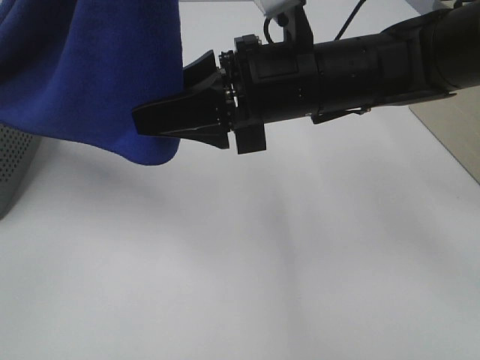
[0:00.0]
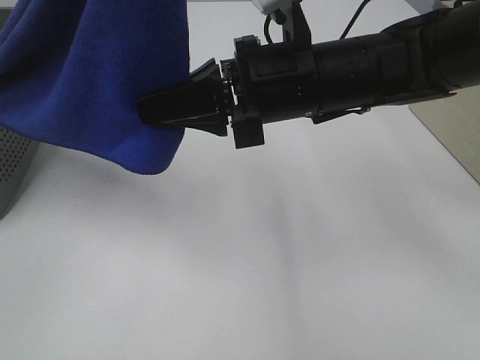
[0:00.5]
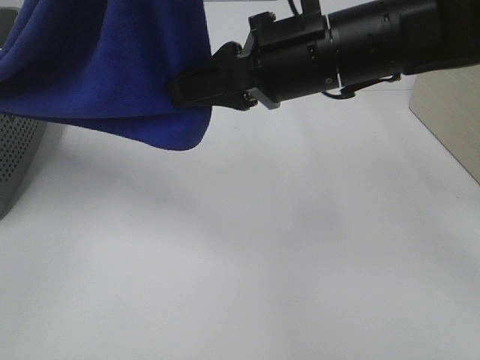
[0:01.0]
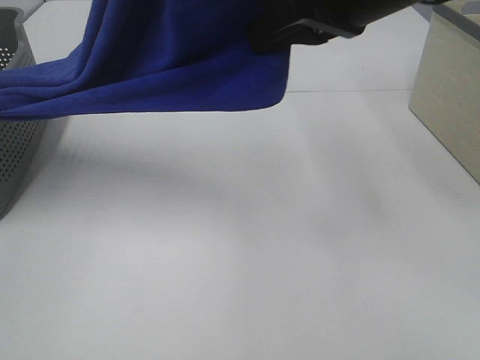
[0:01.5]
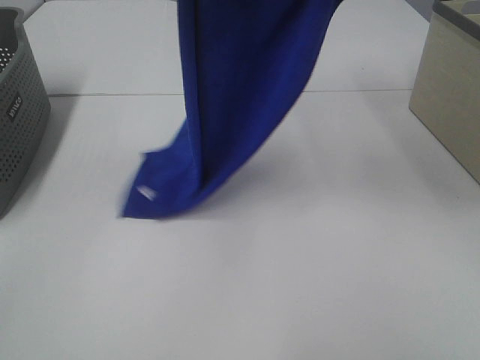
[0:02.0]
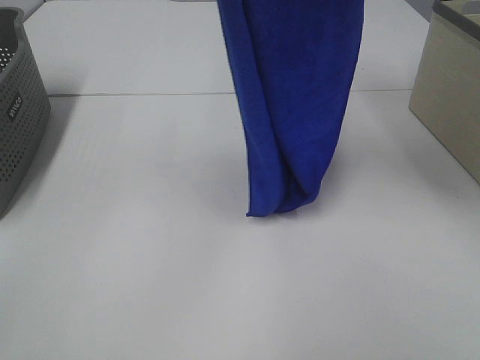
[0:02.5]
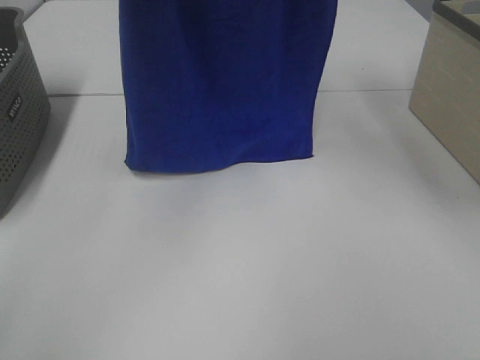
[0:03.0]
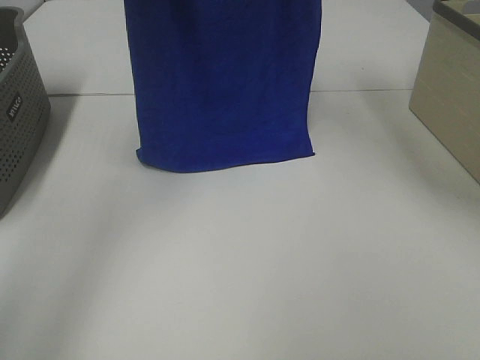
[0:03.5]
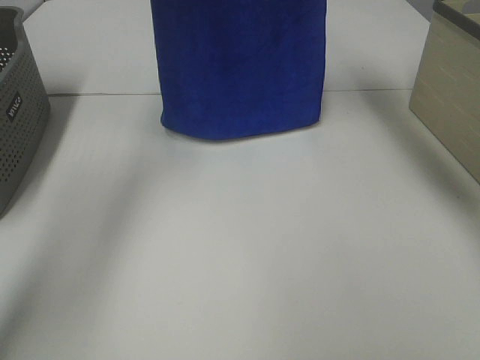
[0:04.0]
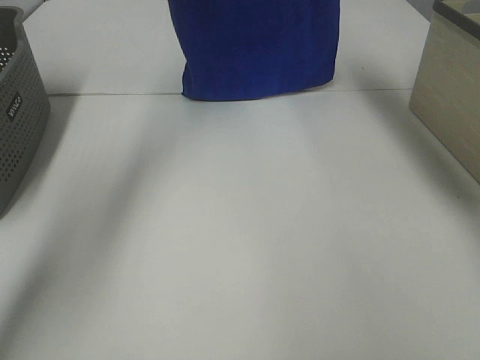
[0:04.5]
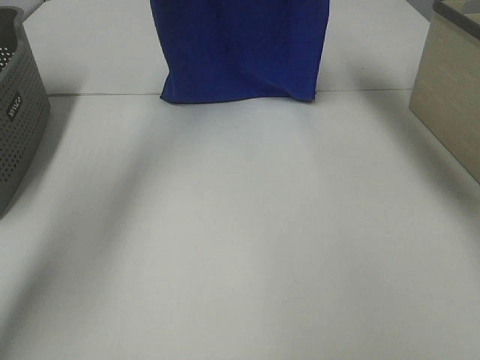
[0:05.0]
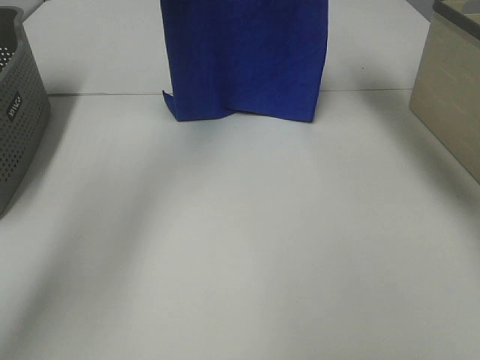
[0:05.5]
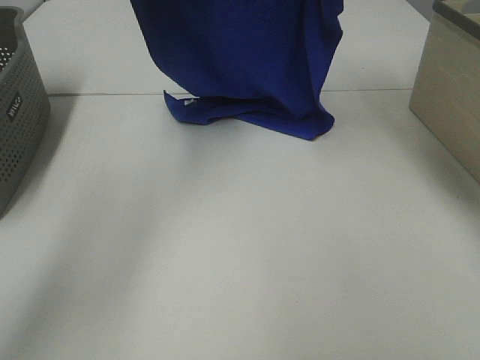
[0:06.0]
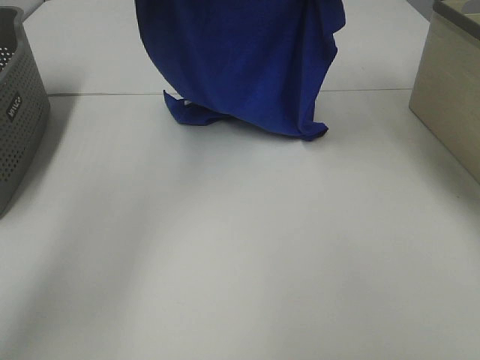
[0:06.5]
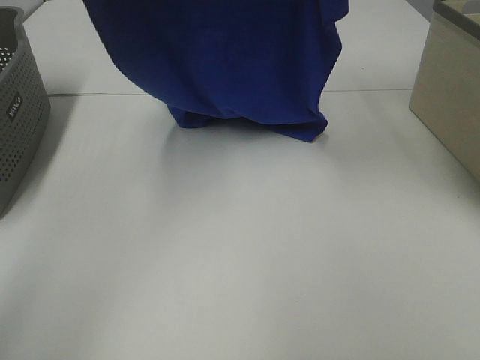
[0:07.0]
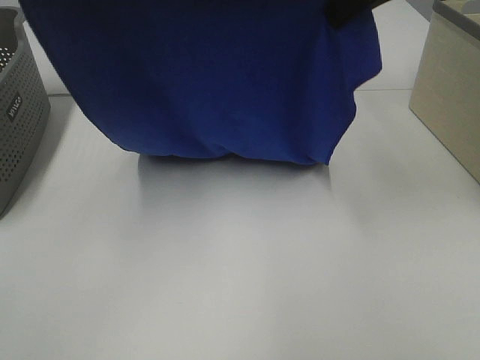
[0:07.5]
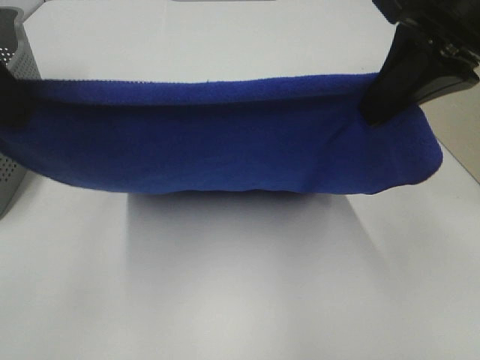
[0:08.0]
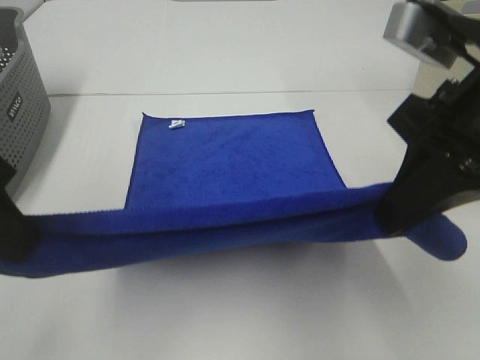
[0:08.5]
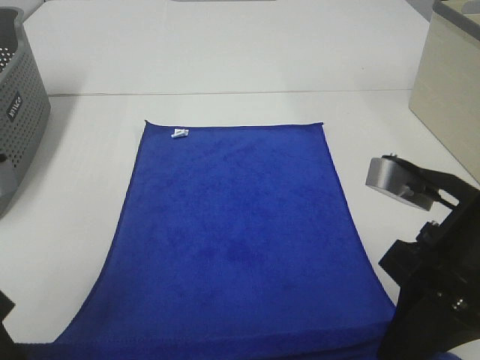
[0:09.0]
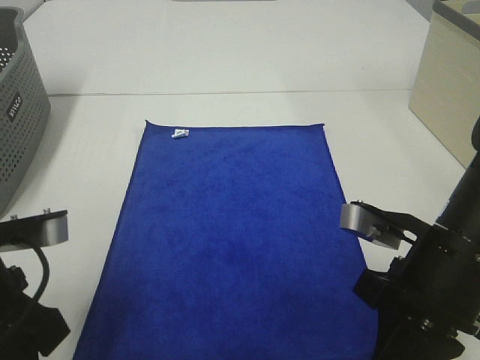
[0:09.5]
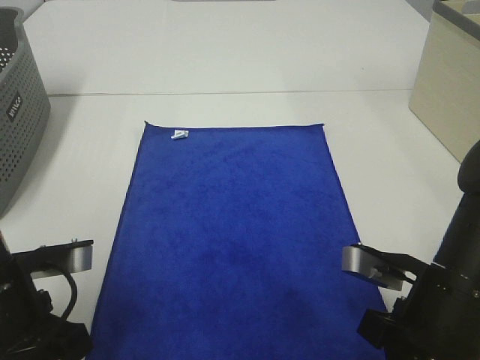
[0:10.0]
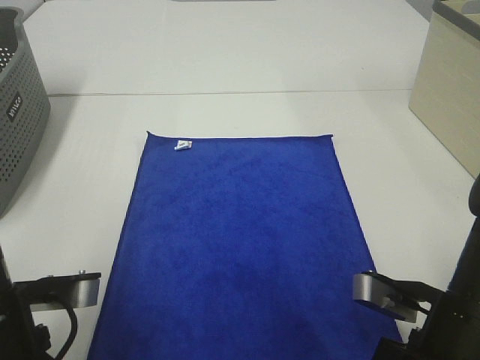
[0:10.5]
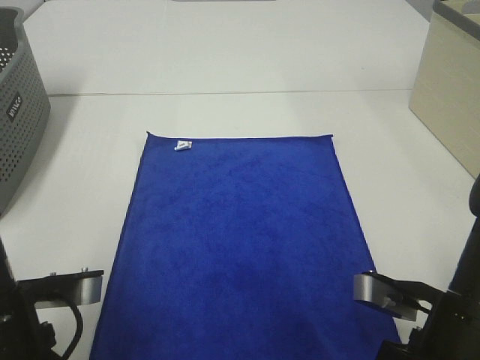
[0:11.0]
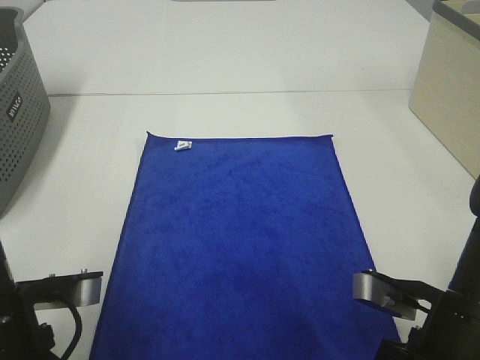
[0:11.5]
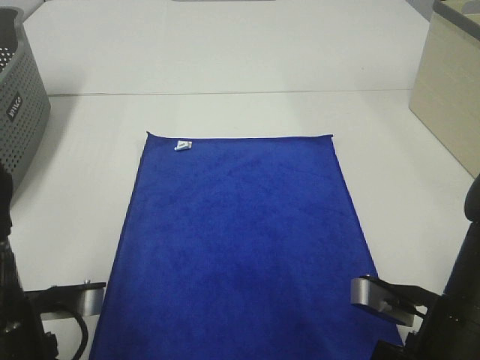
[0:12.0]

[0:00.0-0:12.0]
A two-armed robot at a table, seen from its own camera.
Task of the whole recording: Remove the towel and place it.
Step, 0:01.5 to 0:09.0: Left hand: spread the blue towel flat on the table.
Step, 0:01.5 to 0:09.0: Right hand: spread the blue towel flat on the table.
0:00.0 to 0:02.0: The left gripper moves forward, roughly 10 cm. The right gripper shifts approximately 20 cm upward and to the right, and closes its fingers.
0:02.0 to 0:04.0: The grippers both shift forward by approximately 20 cm.
0:04.0 to 0:06.0: The grippers both shift downward by about 10 cm.
0:06.0 to 0:08.0: Both grippers move backward, approximately 25 cm.
0:08.0 to 0:10.0: Both grippers travel together downward, approximately 25 cm.
0:10.0 to 0:12.0: The grippers move only a little.

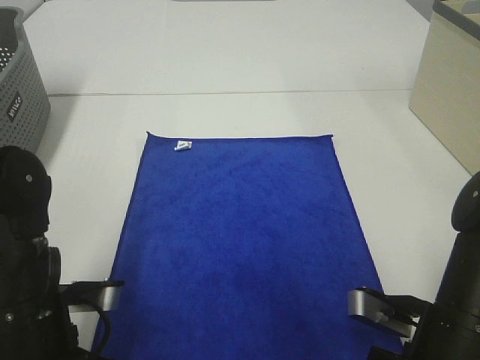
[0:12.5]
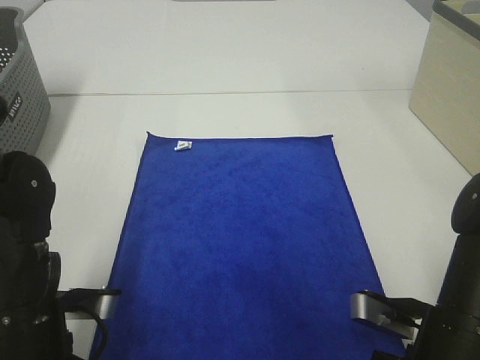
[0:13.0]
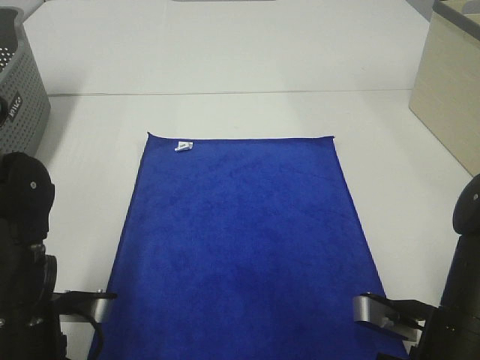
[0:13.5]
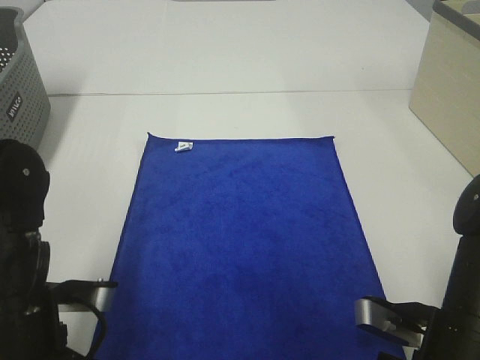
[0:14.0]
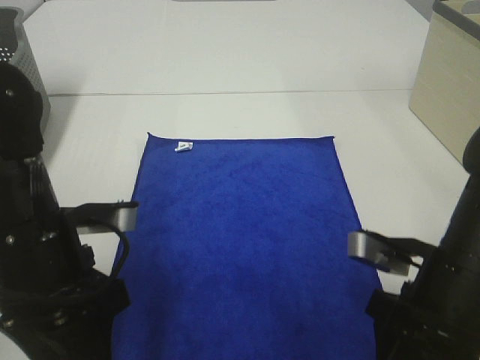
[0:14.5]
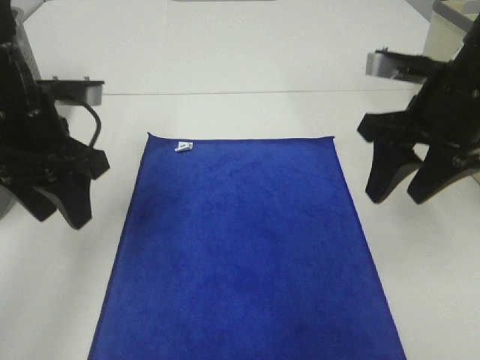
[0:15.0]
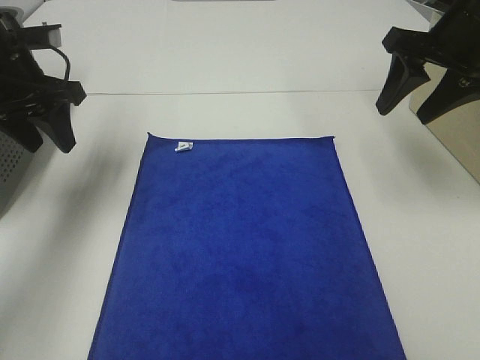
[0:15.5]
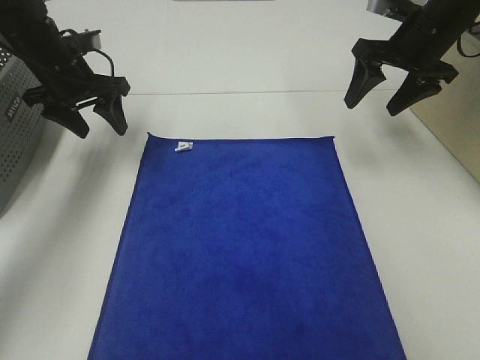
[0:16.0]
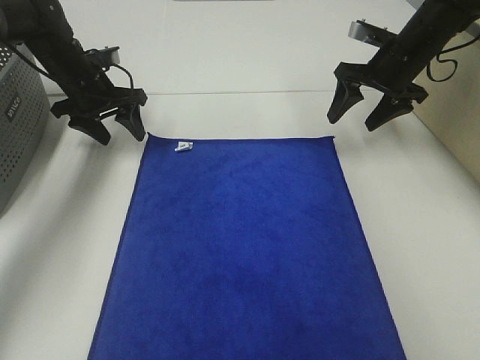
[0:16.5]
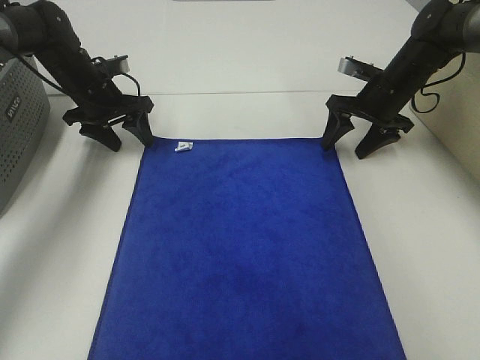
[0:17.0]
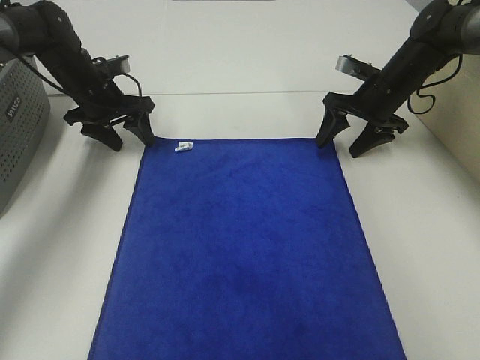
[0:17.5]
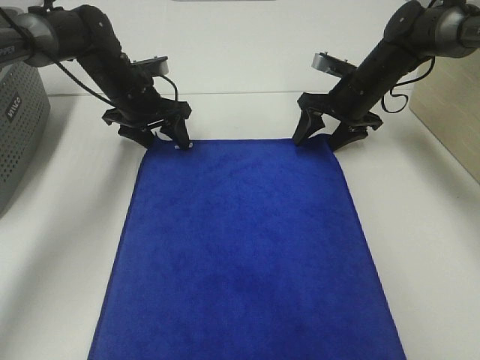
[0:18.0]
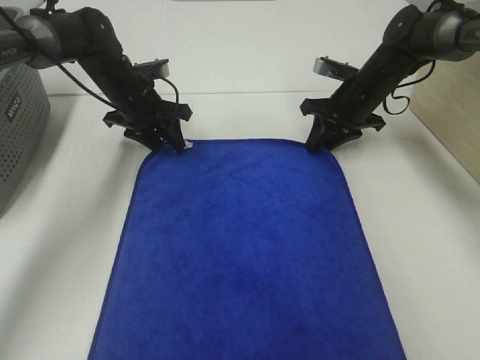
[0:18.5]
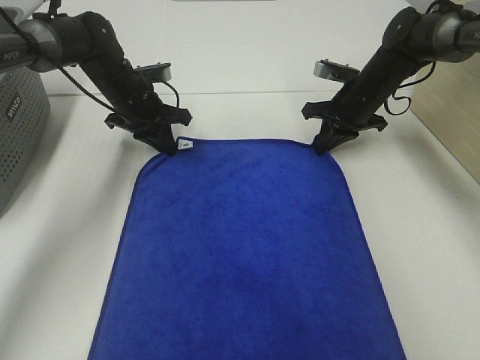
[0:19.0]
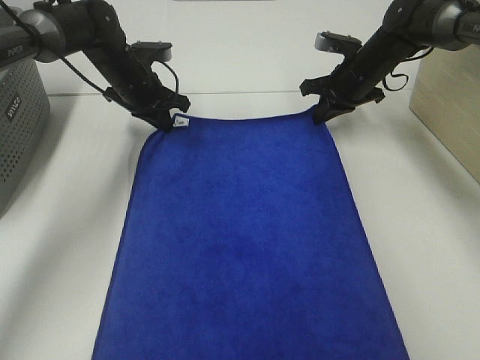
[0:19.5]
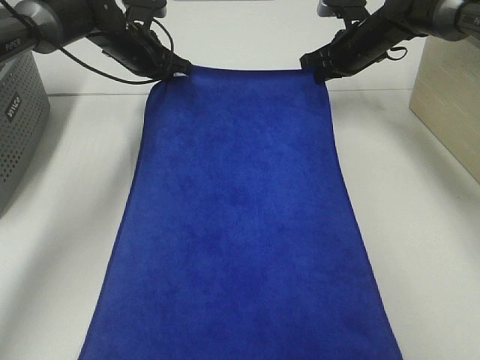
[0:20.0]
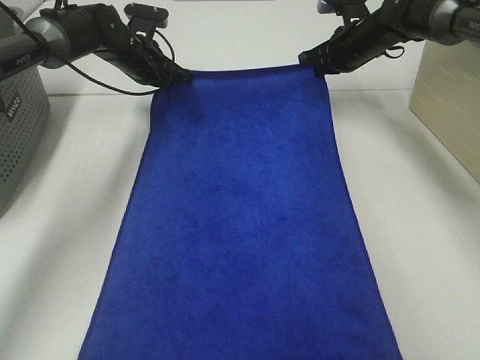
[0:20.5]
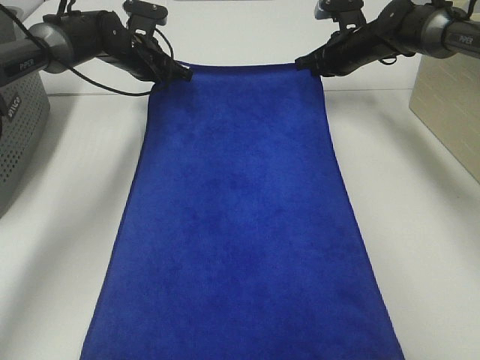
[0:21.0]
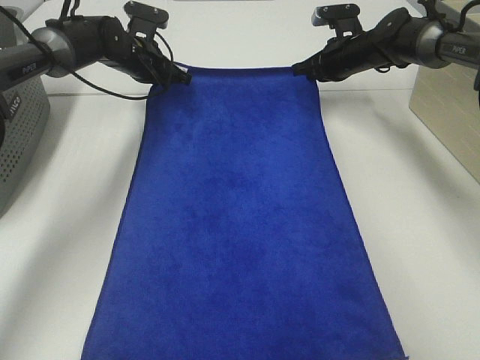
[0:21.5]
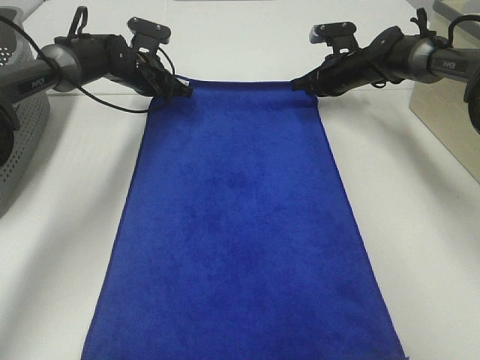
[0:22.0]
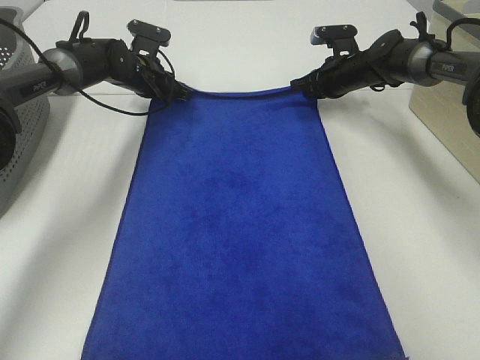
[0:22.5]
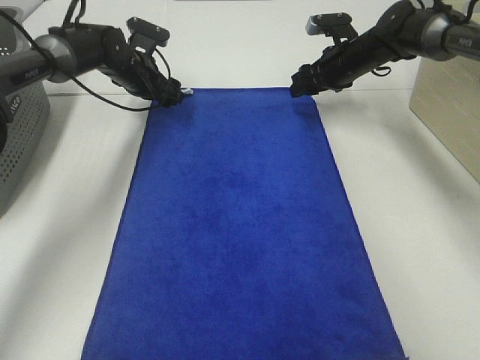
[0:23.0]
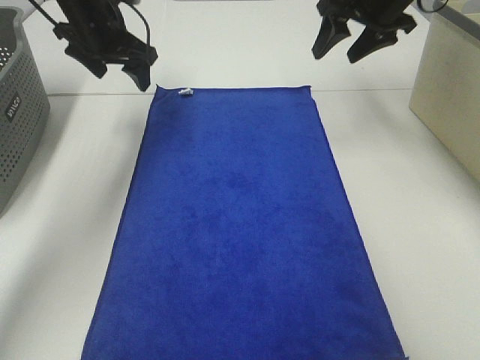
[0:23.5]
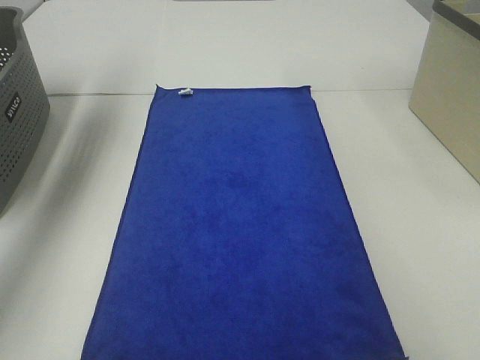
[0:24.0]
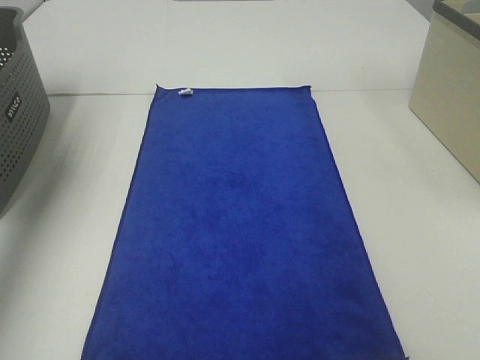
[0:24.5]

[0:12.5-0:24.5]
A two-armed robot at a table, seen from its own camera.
Task of the whole recording: Remove the towel and place it.
Step, 0:12.5 to 0:16.0: Left hand:adjust the blue towel.
Step, 0:12.5 to 0:16.0: Right hand:adjust the blue towel.
0:12.5 to 0:14.5: The right gripper changes place by approximately 5 cm, and opens; the left gripper travels upward by roughly 5 cm, and opens its fingers.
0:14.5 to 0:16.5: Both grippers travel together forward, roughly 30 cm.
0:16.5 to 0:18.5: The left gripper is displaced to the right by about 5 cm. Meanwhile the right gripper moves downward, some 5 cm, and closes.
0:18.5 to 0:20.5: The left gripper goes some 5 cm forward, and closes; the right gripper moves forward and upward, about 10 cm, and closes.
0:20.5 to 0:22.5: The right gripper is displaced downward by some 5 cm.
0:22.5 to 0:24.5: The left gripper shifts roughly 40 cm upward, backward and to the left, and opens. The right gripper goes approximately 40 cm upward and backward, and opens its fingers.

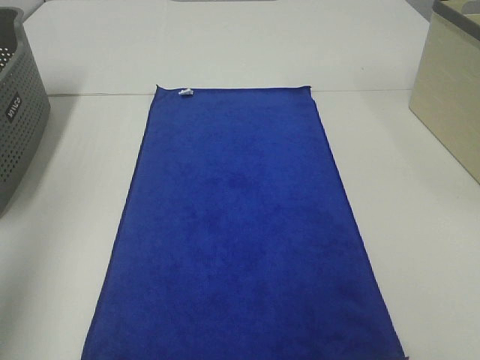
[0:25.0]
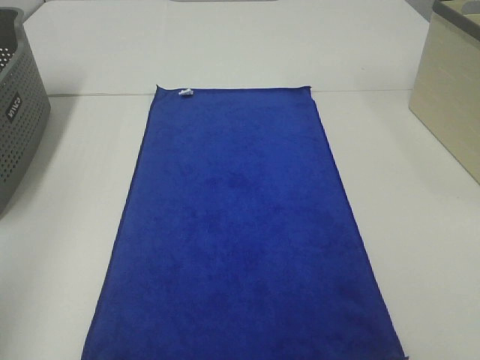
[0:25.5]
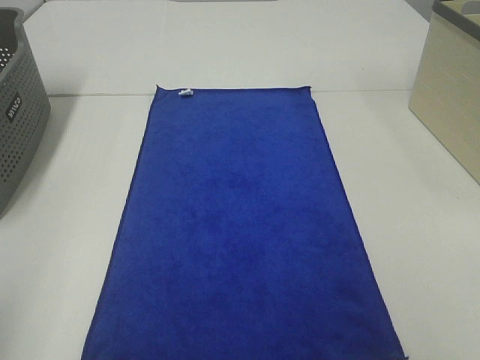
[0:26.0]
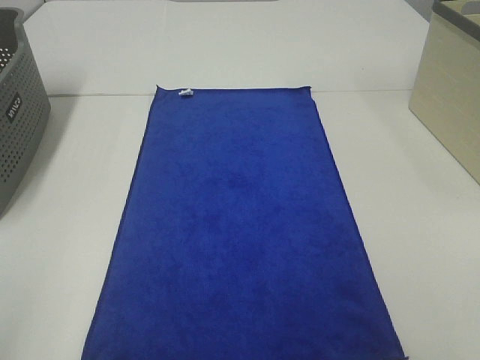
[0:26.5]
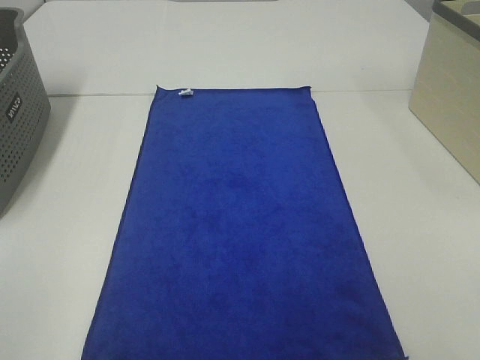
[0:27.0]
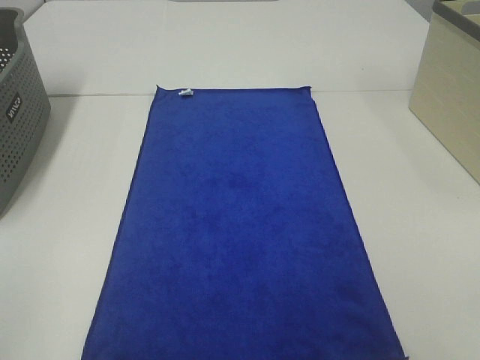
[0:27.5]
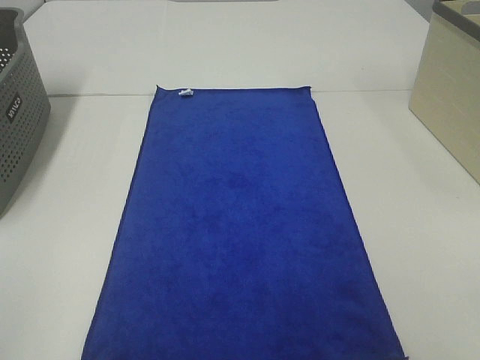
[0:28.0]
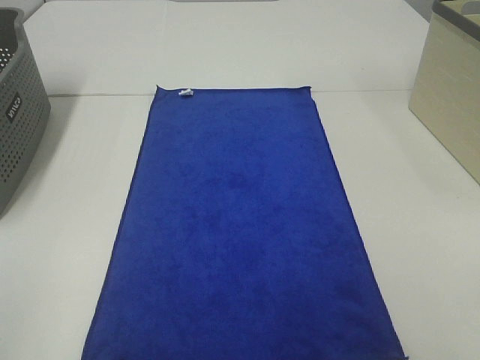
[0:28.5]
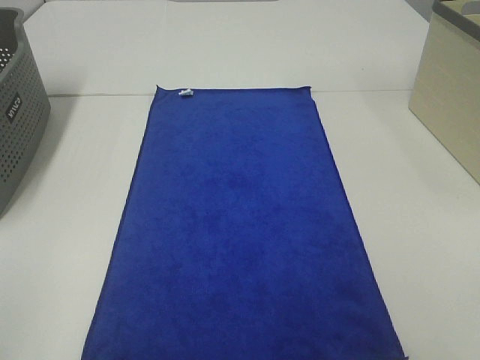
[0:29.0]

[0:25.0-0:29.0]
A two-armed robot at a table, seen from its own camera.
Task of the whole recording: Remove the towel and place it.
0:25.0 to 0:27.0: The left gripper is displaced backward and downward by about 20 cm.
